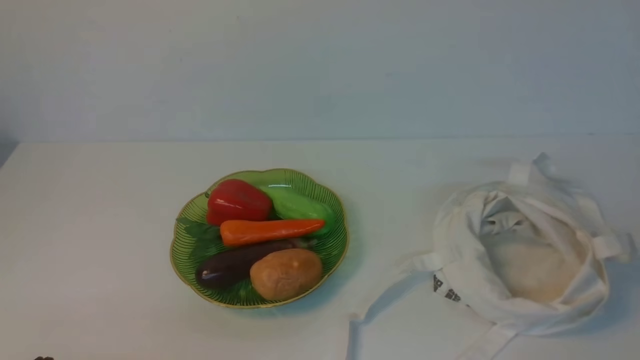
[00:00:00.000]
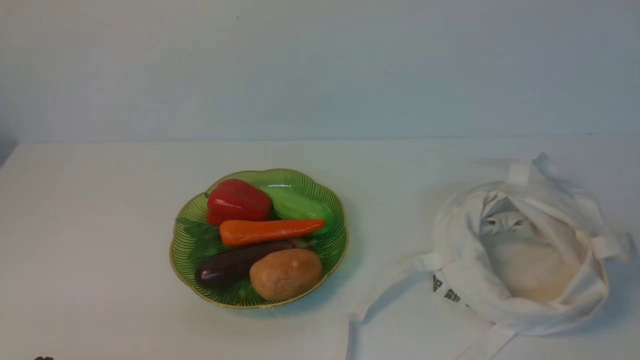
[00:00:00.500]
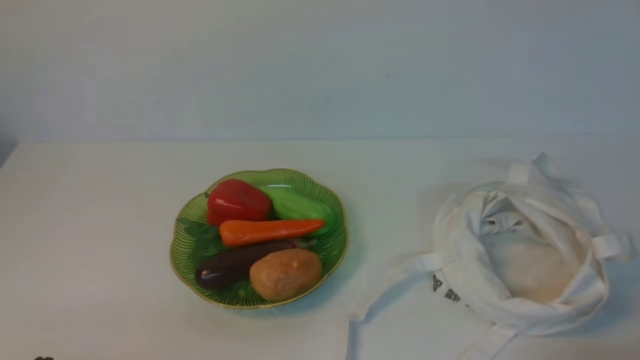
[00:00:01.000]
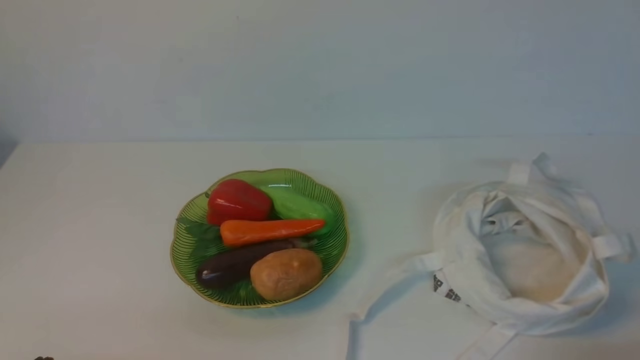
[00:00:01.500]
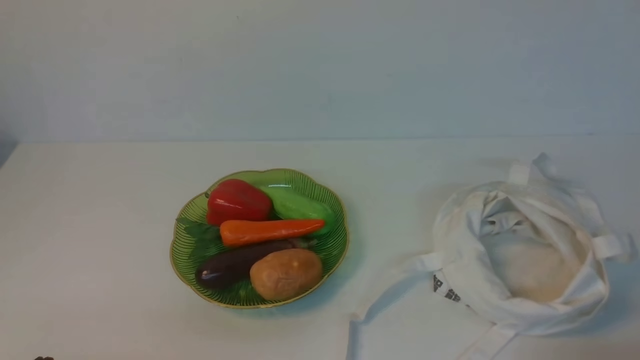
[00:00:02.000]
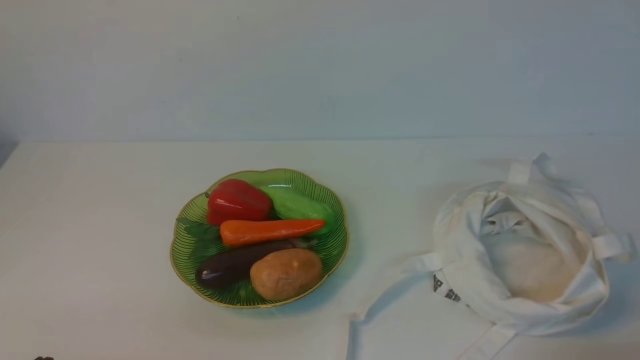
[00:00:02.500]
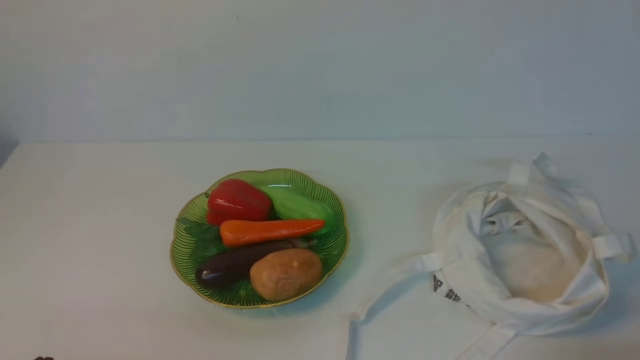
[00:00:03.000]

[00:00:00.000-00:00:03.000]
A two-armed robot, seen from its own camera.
Task of the whole recording: take vegetables from cloth bag on white table place on plate.
00:00:01.500 to 00:00:03.000: Both grippers stay about where they are.
